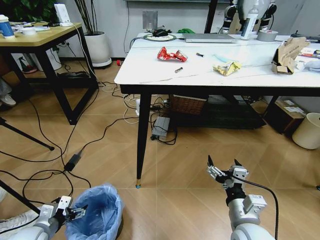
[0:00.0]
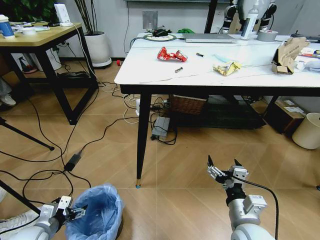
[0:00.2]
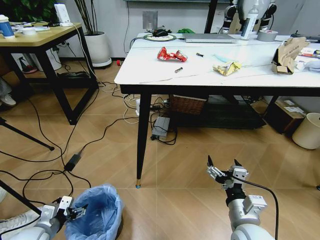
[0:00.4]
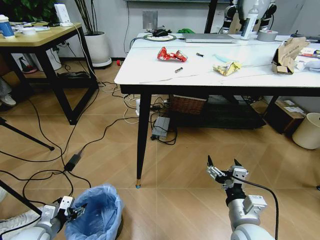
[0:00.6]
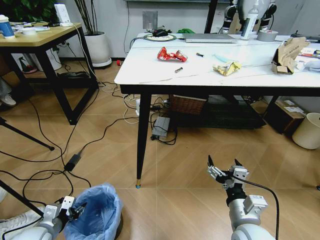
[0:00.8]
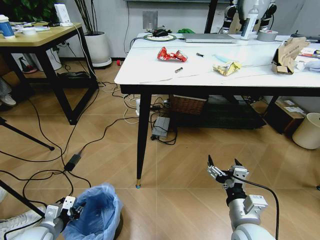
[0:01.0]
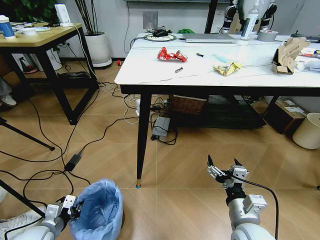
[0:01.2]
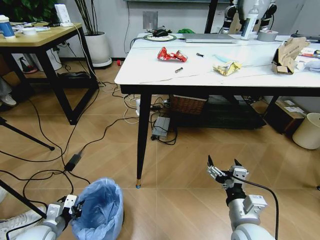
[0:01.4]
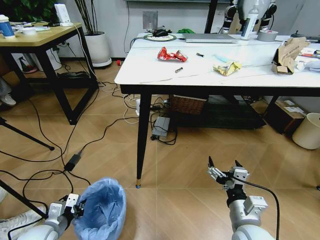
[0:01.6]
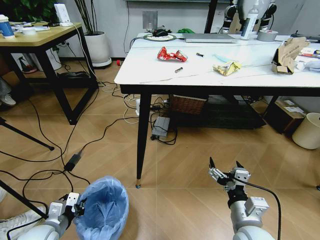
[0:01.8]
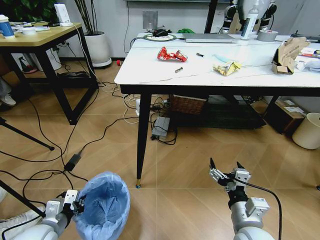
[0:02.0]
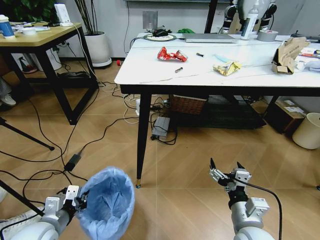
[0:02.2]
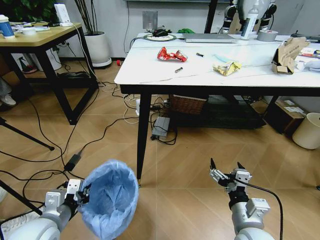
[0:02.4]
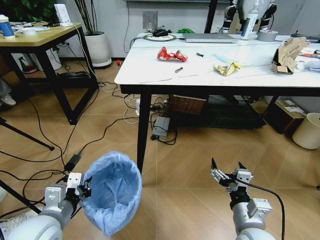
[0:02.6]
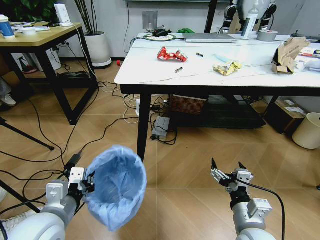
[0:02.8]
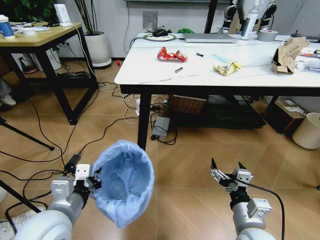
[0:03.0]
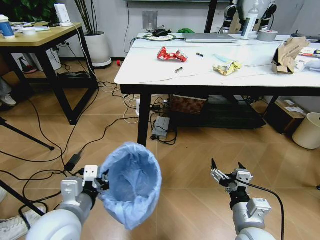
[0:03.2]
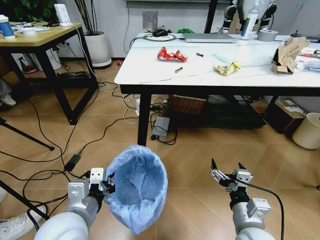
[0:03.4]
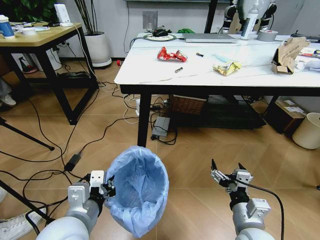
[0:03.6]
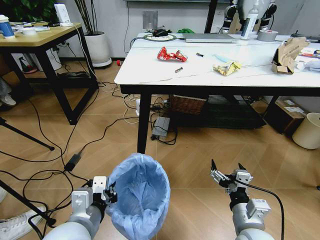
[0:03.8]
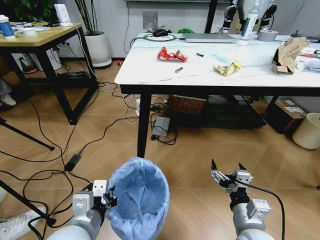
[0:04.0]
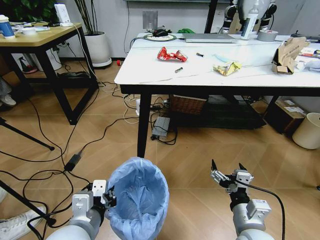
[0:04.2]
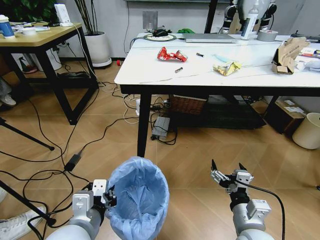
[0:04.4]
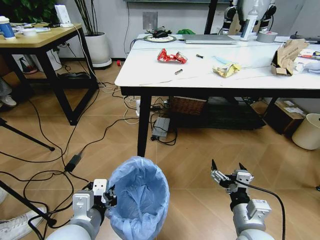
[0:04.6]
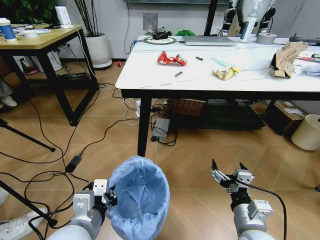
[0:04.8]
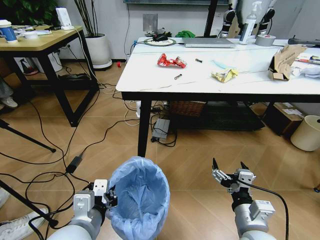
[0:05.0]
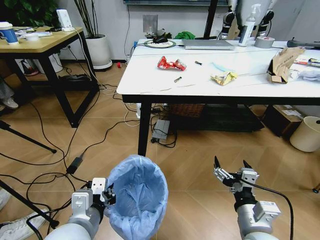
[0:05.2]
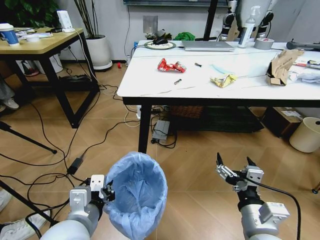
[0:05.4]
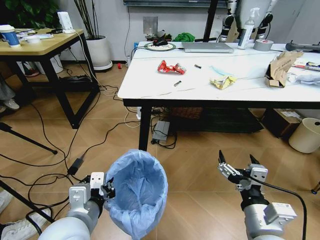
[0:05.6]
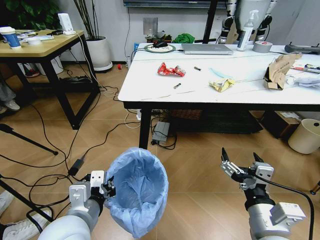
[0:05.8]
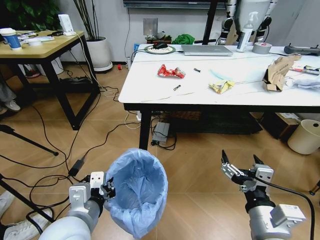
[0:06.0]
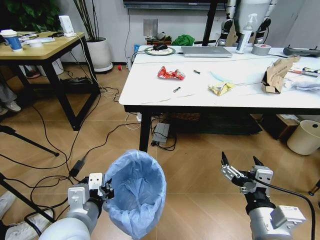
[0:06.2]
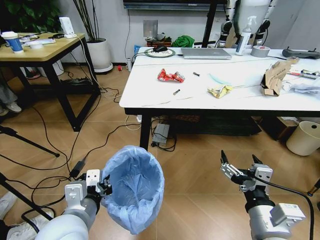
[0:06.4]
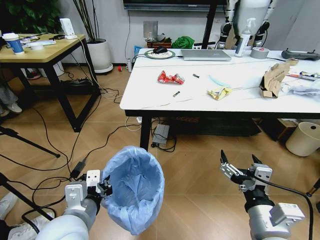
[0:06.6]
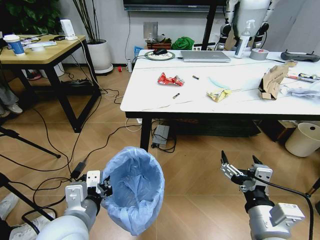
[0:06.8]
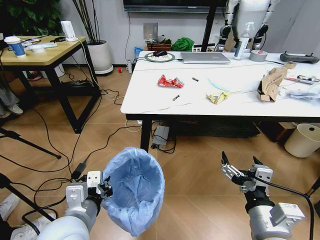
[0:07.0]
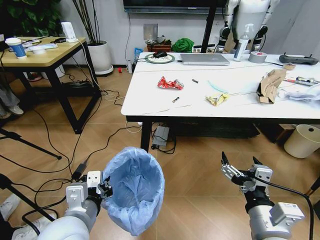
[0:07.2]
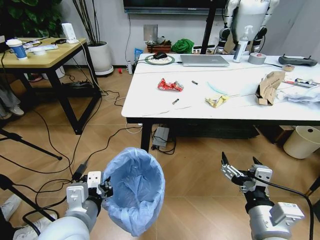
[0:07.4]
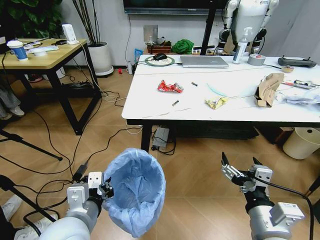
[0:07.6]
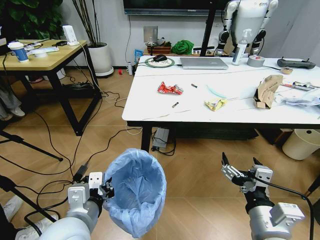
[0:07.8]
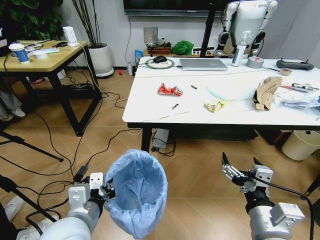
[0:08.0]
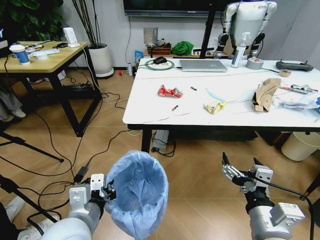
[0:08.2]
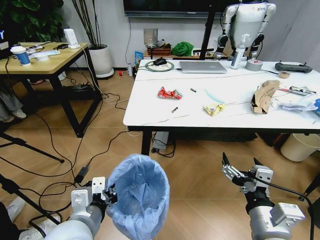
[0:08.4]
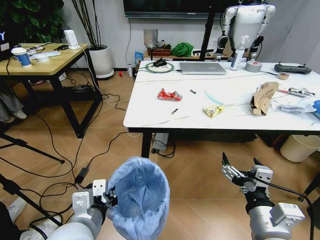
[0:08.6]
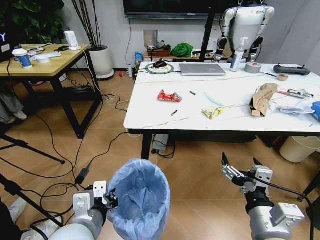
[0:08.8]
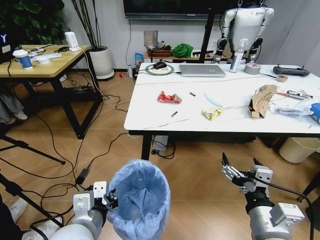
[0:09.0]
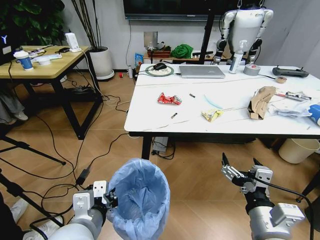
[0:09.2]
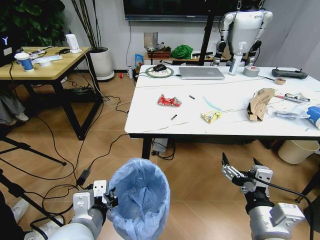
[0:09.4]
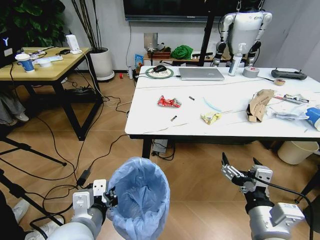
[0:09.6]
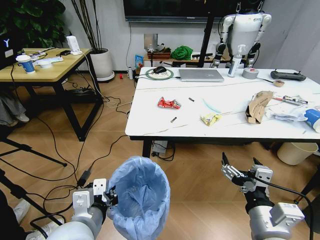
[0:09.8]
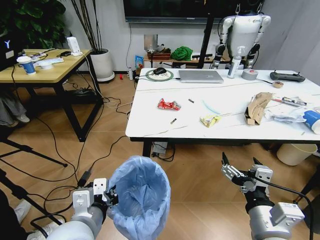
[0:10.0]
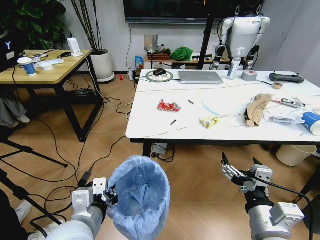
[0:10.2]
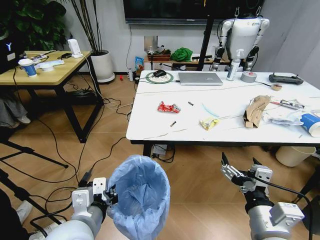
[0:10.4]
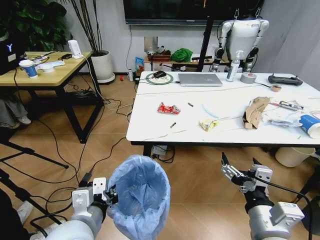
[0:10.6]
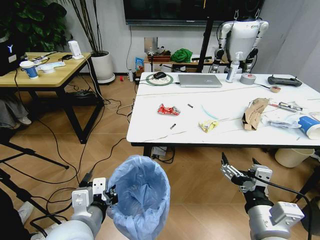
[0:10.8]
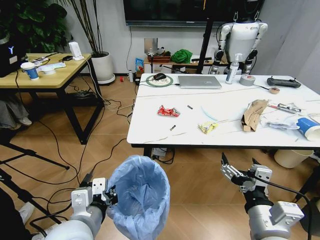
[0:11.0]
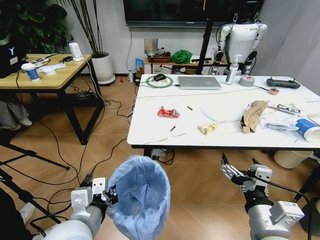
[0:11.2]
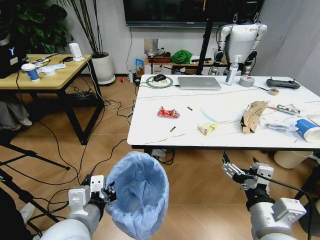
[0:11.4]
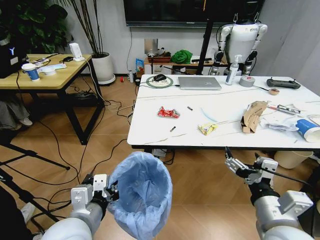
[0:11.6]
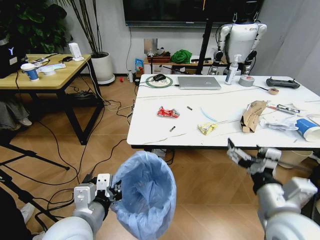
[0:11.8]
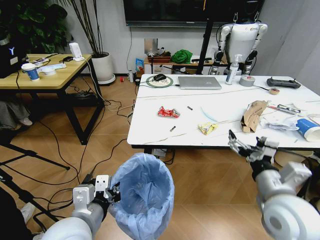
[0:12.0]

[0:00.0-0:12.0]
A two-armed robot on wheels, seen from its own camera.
Task of the whole recording: Pick up the trash bin and place the trash from the table into it.
0:00.0 to 0:01.6: The left gripper closes.
0:01.6 to 0:03.0: The left gripper is displaced upward and to the right by approximately 25 cm.
0:03.0 to 0:04.4: The left gripper is displaced to the right by approximately 5 cm.
0:04.4 to 0:06.0: The right gripper shifts approximately 5 cm upward.
0:10.4 to 0:12.0: The right gripper heads forward, covering roughly 10 cm.

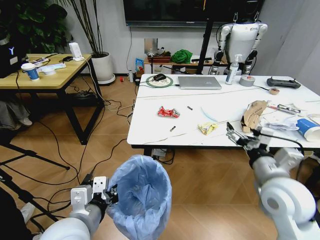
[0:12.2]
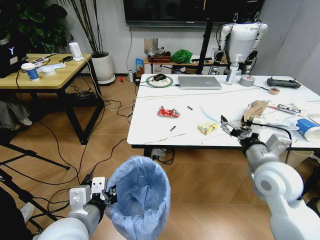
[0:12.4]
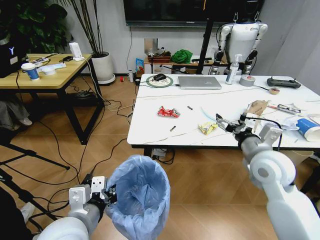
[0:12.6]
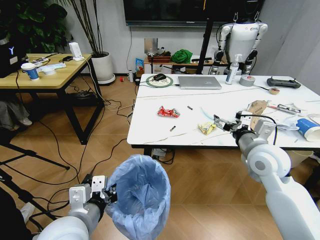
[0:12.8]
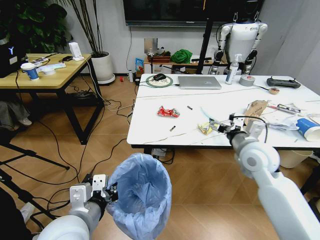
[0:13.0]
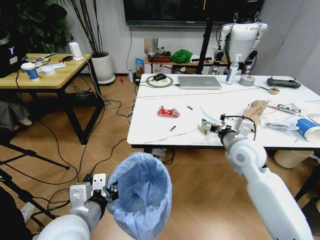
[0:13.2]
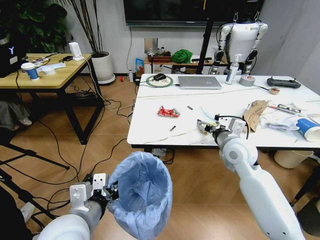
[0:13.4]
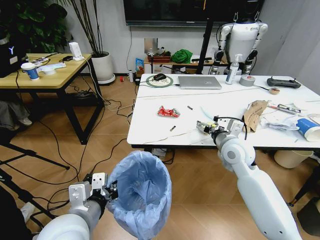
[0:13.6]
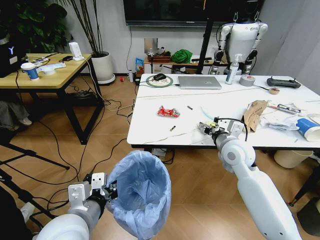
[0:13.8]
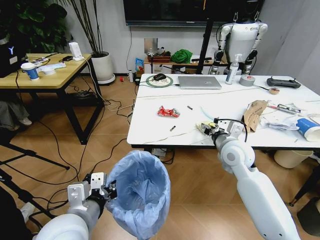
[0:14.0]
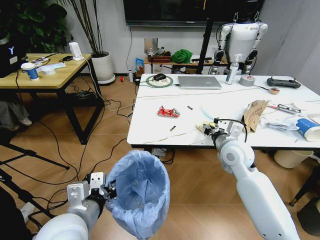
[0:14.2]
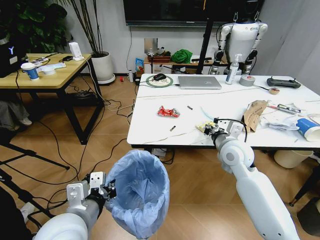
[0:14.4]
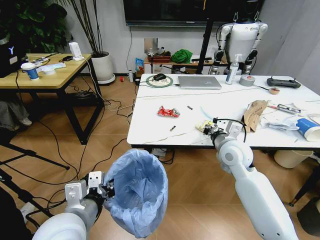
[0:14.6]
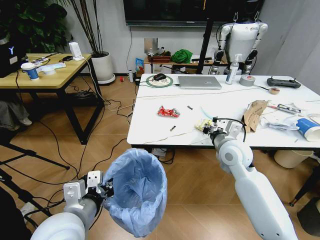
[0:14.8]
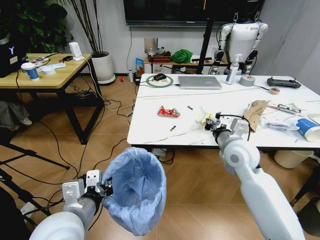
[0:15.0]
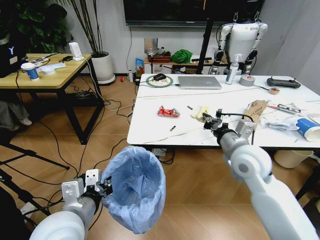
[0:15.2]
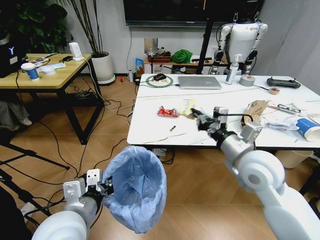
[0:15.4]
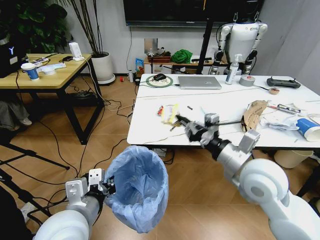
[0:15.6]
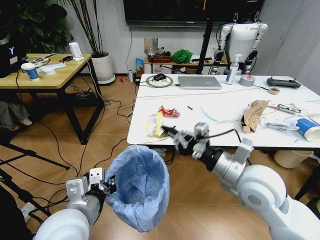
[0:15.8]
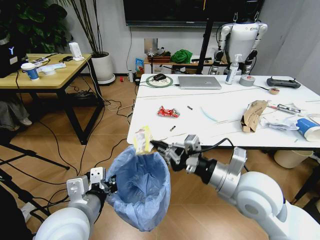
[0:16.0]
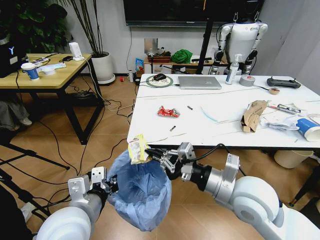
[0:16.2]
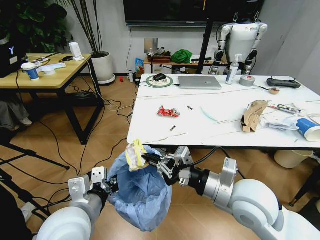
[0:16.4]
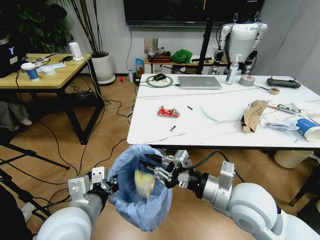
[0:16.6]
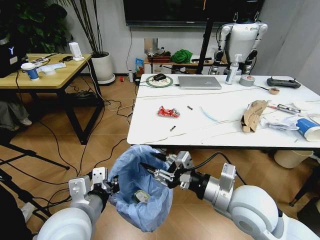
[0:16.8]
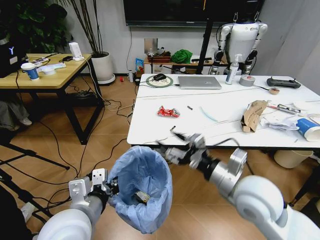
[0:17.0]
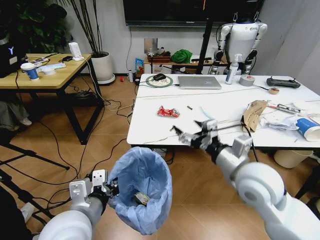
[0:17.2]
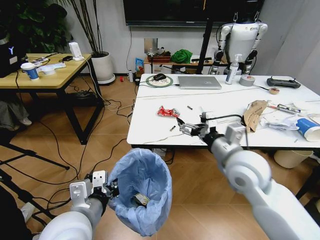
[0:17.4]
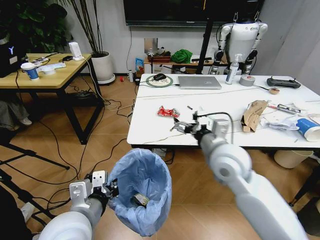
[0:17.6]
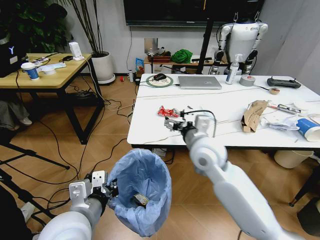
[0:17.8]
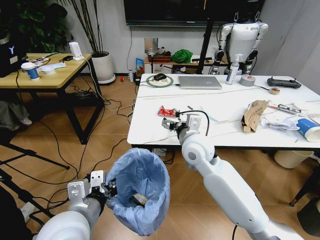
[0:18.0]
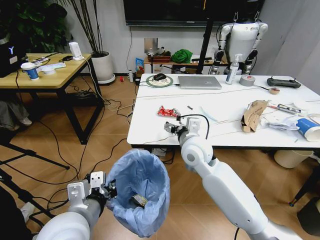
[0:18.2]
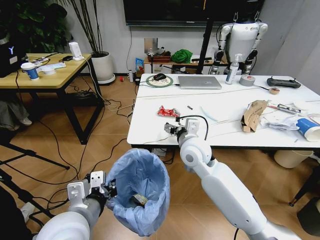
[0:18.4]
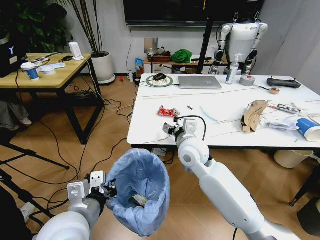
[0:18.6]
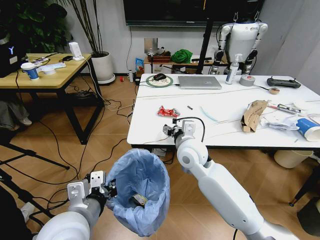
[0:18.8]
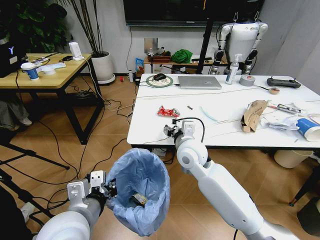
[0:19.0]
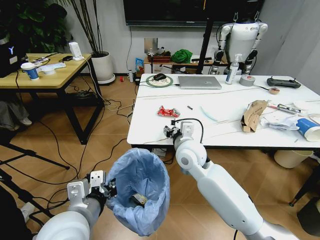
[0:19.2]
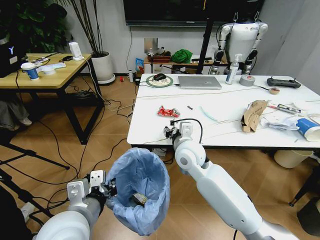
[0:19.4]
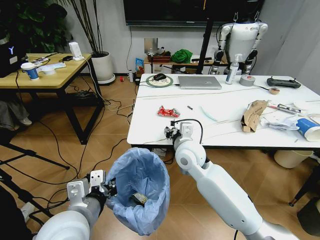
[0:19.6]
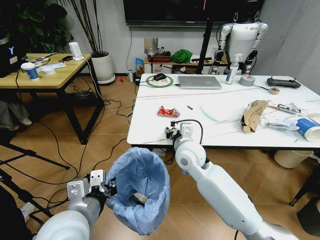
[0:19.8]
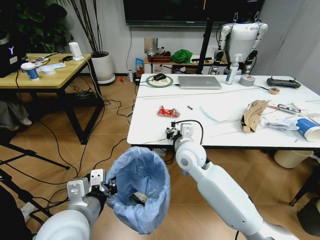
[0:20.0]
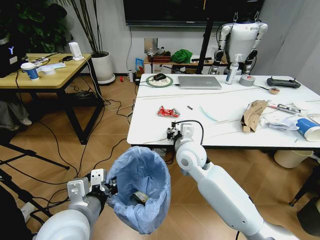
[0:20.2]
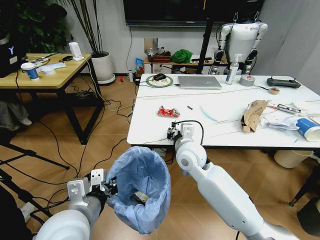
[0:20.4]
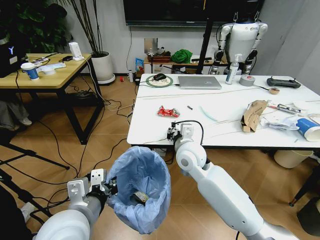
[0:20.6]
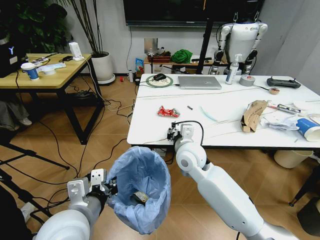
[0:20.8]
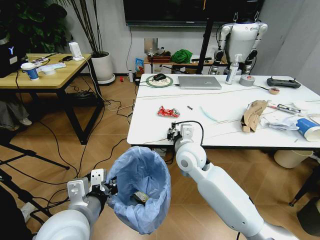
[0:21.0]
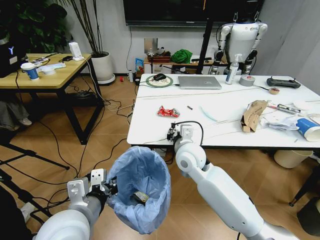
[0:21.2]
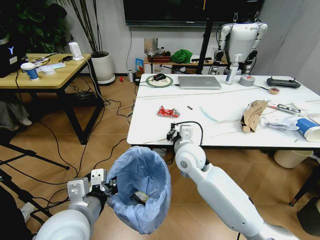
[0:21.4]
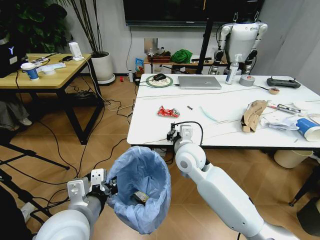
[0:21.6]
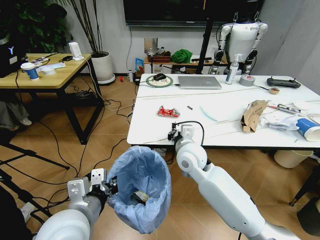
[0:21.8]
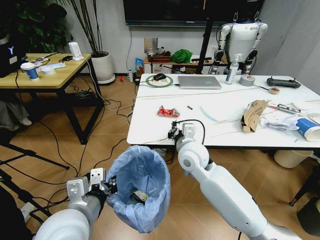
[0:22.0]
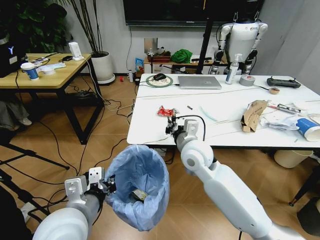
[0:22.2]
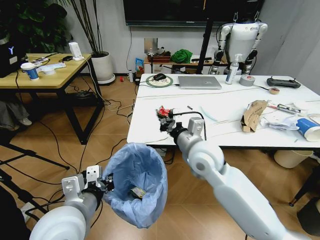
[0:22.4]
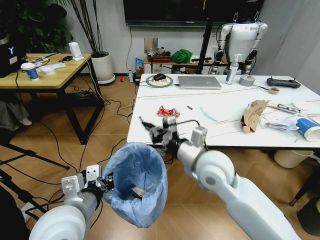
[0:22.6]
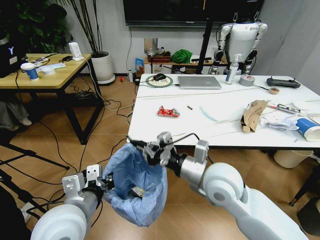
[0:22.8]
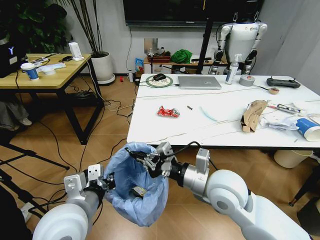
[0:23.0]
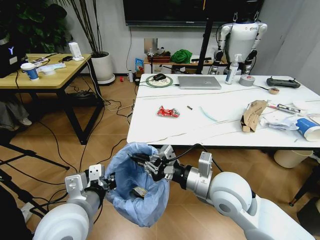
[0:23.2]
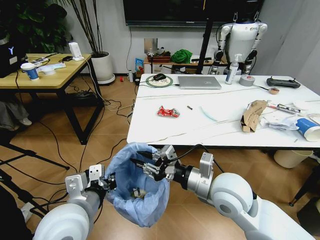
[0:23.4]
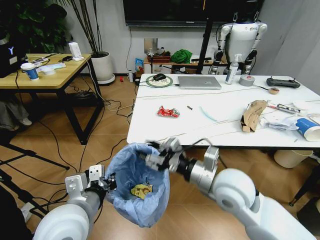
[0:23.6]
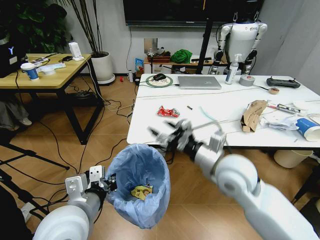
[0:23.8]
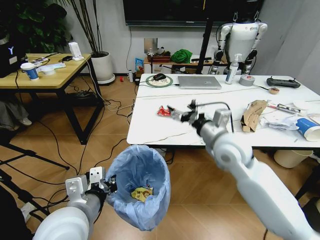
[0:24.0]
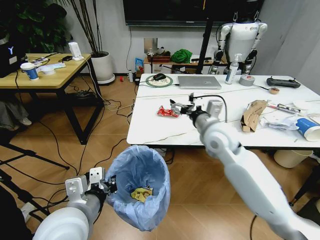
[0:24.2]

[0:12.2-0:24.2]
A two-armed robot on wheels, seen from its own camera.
Task of the whole recording: Pick up the trash bin and place the trash from the table into it.
0:12.2 to 0:13.8: The right gripper travels forward by some 15 cm.
0:13.8 to 0:15.2: The right gripper travels backward by some 5 cm, and closes up.
0:15.2 to 0:16.6: The right gripper shifts about 10 cm backward.
0:16.6 to 0:18.2: The right gripper goes some 20 cm forward and to the left, and opens up.
0:18.2 to 0:19.8: The right gripper closes its fingers.
0:19.8 to 0:21.2: Both grippers stay about where they are.
0:21.2 to 0:22.6: The right gripper goes some 10 cm backward and upward.
0:22.6 to 0:24.2: The right gripper shifts approximately 10 cm forward, and opens up.
